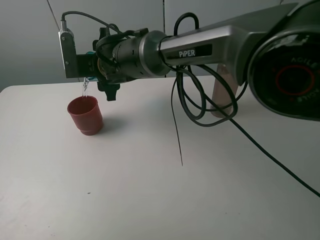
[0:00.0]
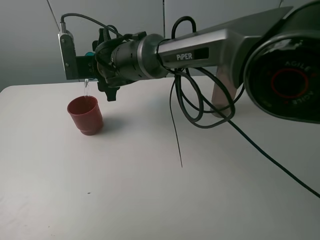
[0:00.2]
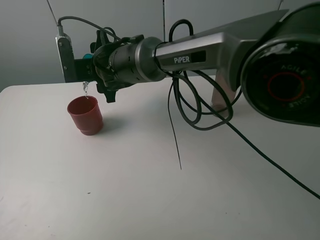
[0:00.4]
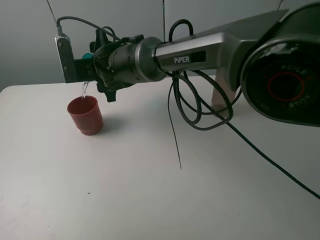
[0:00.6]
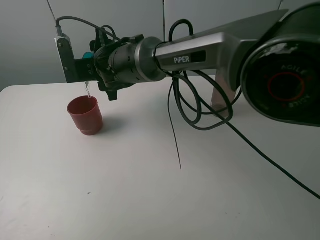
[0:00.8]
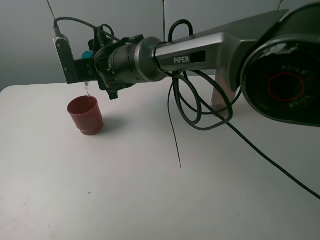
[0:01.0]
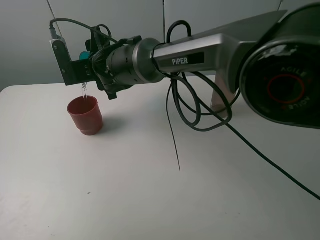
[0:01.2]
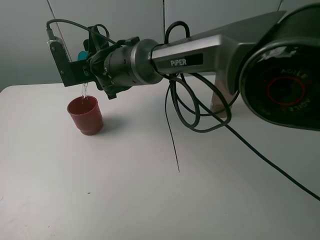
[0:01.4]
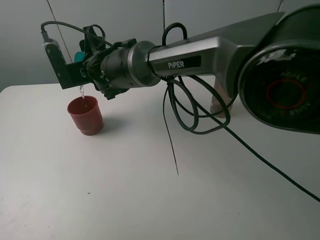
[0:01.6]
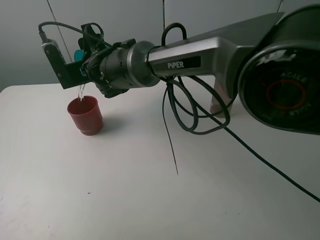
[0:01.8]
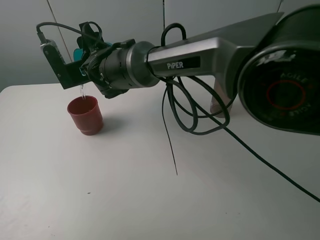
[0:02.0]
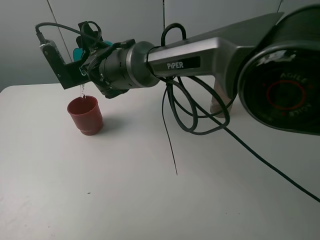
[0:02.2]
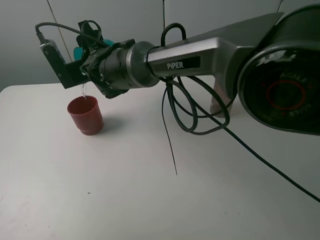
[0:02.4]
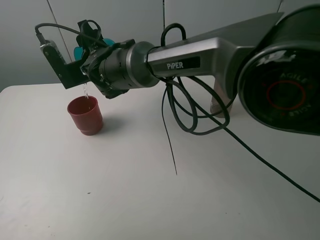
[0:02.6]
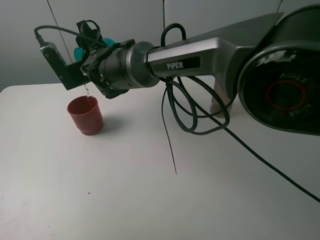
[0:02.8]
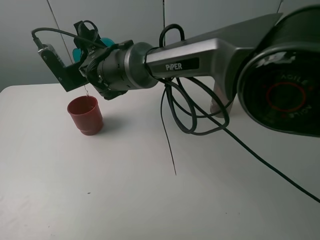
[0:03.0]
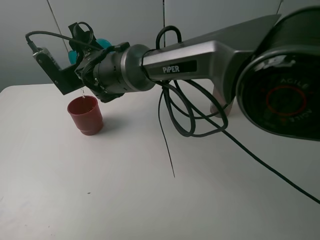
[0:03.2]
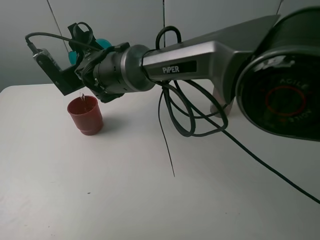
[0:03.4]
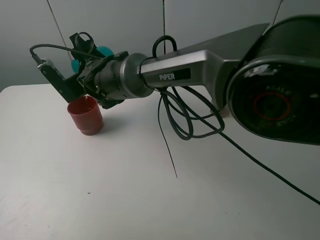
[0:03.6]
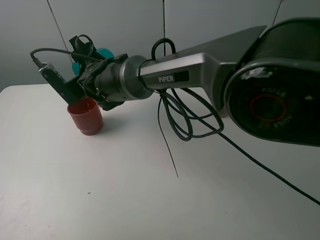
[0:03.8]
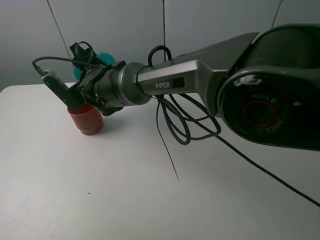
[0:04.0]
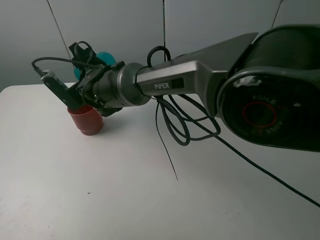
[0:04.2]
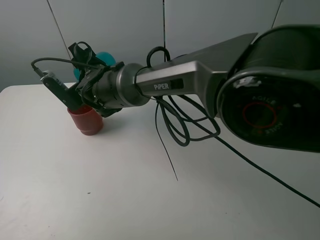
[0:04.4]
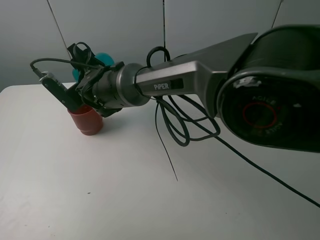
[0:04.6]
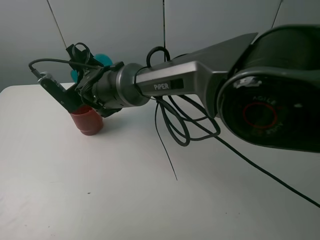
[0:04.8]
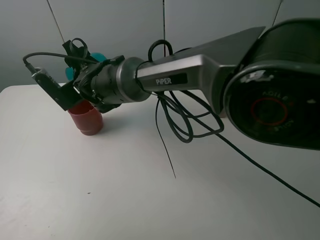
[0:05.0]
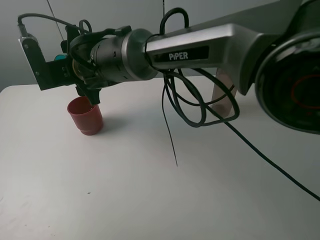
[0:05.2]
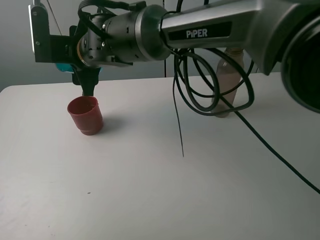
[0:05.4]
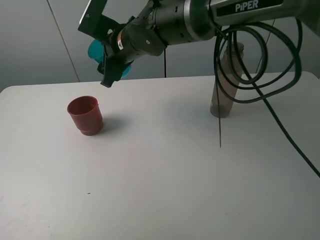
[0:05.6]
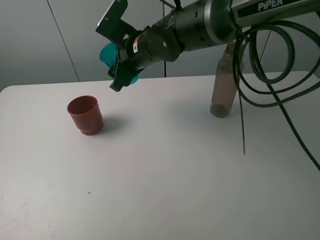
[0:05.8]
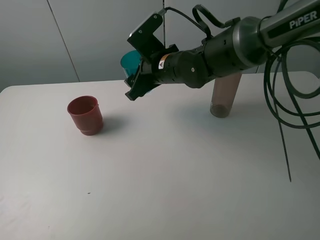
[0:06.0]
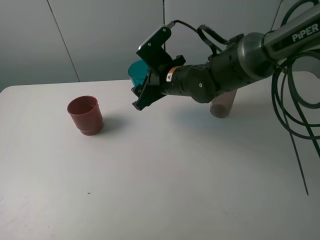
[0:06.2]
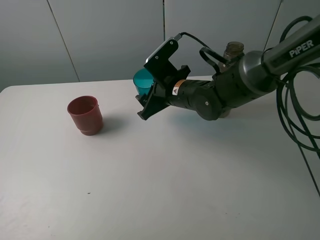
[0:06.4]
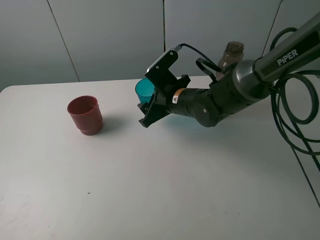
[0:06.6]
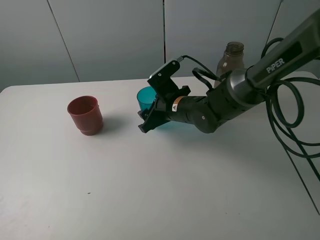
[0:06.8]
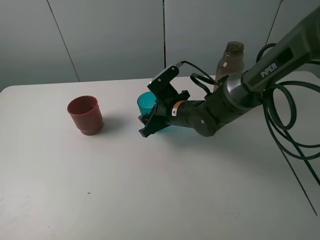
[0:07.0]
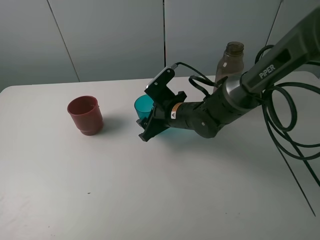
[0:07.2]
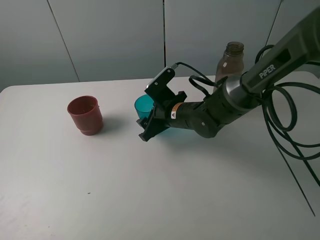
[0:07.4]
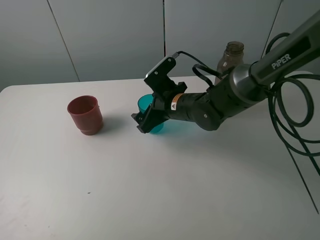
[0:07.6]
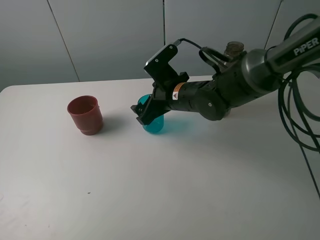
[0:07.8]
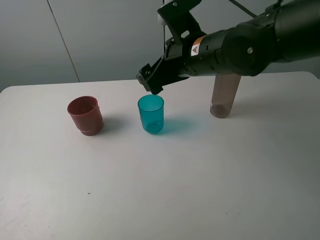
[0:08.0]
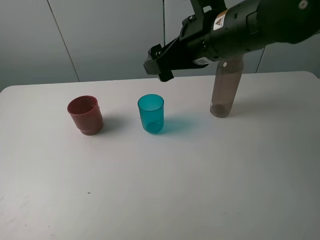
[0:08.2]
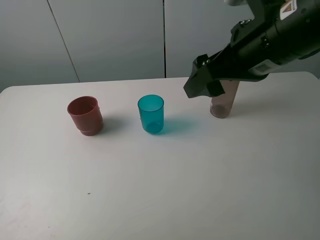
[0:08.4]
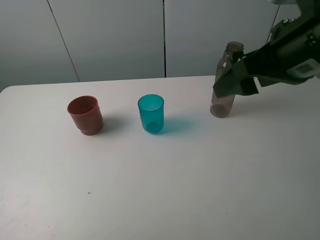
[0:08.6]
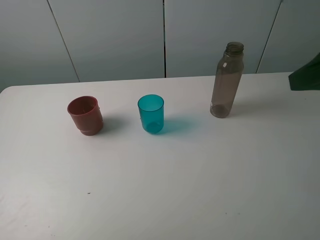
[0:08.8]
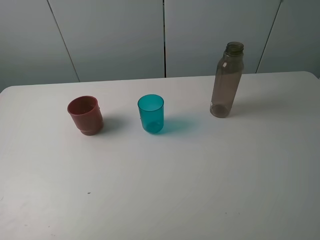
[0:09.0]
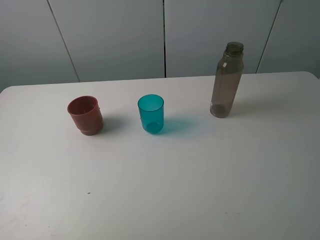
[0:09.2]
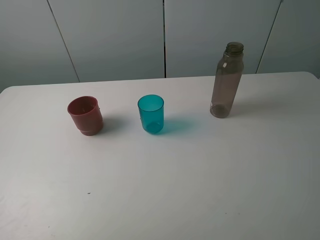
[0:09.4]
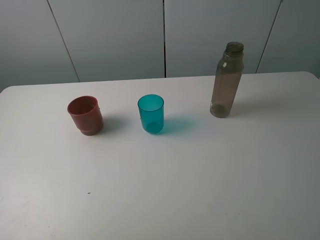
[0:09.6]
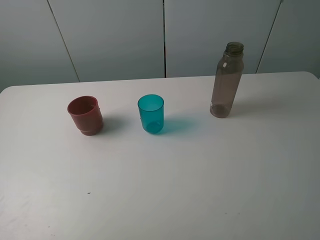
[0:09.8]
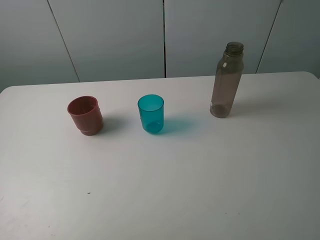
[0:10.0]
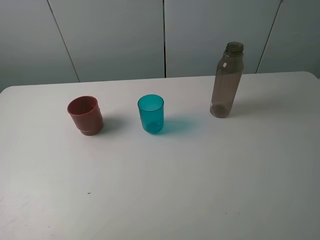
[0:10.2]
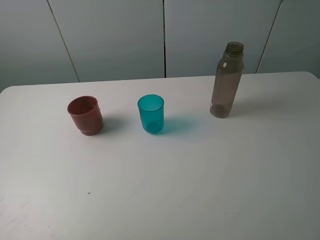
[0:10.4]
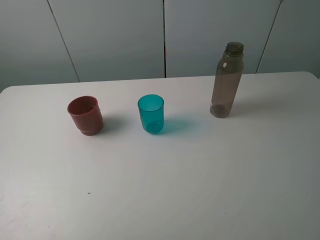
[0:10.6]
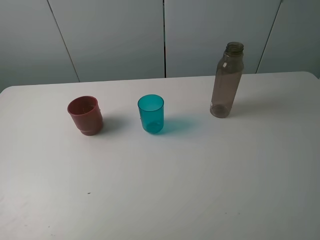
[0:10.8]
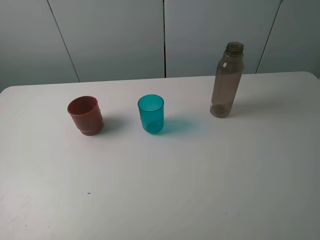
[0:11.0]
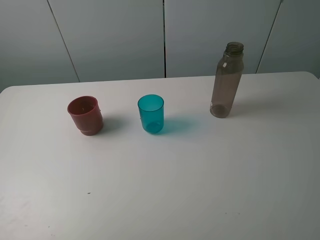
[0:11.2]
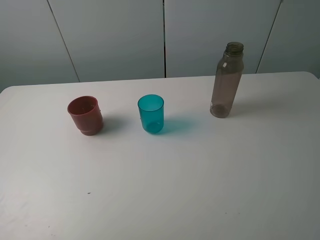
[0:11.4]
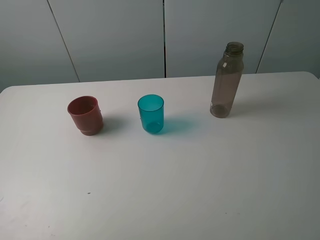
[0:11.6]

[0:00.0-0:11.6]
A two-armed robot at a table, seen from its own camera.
Task of the whole recording: pick up the bottle and pour water into the cup, then pick up the cup containing water and pour it into another cup.
Step, 0:00.0 to 0:03.0: Pour water from blue cup to red cup with the right gripper.
Step, 0:03.2 to 0:07.6: Place the blue cup with the right gripper.
0:00.0 to 0:01.4: The grippers stay close to where they were, moving slightly.
0:01.4 to 0:02.8: The grippers stay close to where they were, moving slightly.
0:04.4 to 0:05.8: The right gripper heads to the right, covering about 10 cm.
0:05.8 to 0:07.2: The right gripper shifts roughly 15 cm downward and to the right.
0:07.2 to 0:08.8: The right gripper moves upward, to the right and backward, about 40 cm, and opens up.
0:08.8 to 0:10.2: The right gripper is displaced backward and downward by some 15 cm.

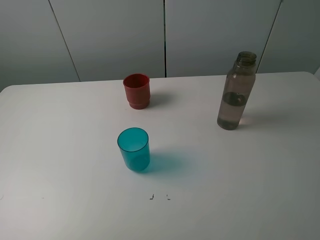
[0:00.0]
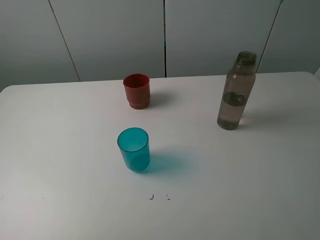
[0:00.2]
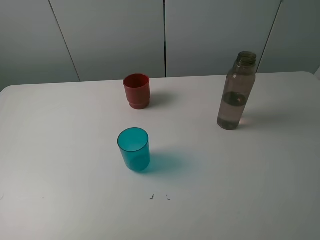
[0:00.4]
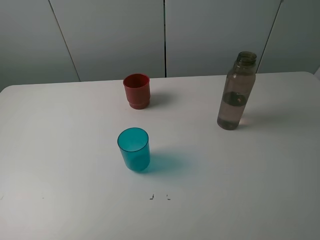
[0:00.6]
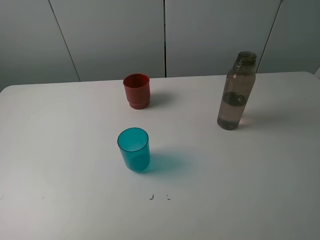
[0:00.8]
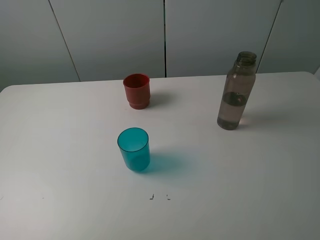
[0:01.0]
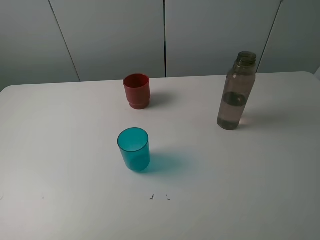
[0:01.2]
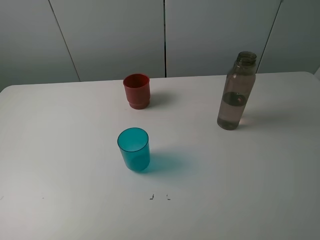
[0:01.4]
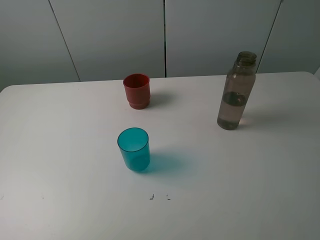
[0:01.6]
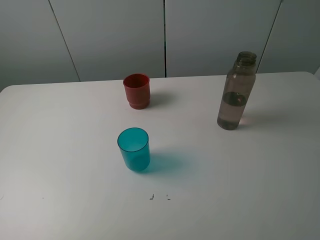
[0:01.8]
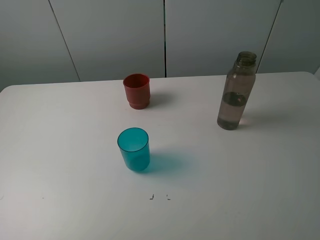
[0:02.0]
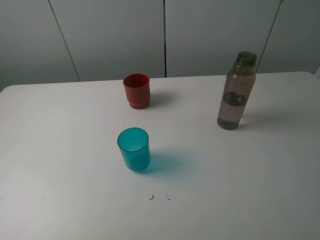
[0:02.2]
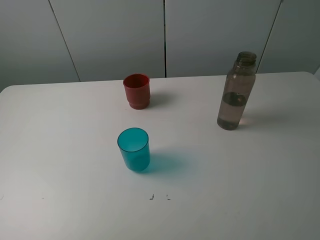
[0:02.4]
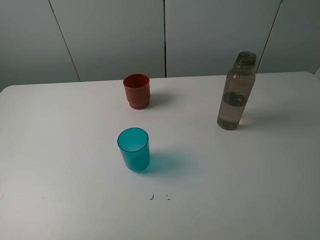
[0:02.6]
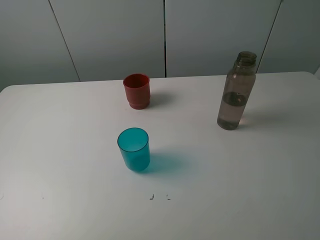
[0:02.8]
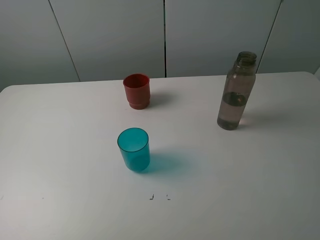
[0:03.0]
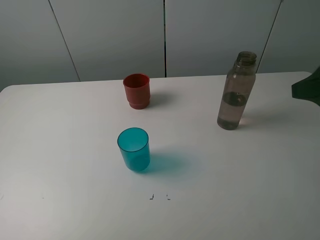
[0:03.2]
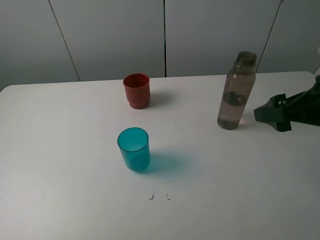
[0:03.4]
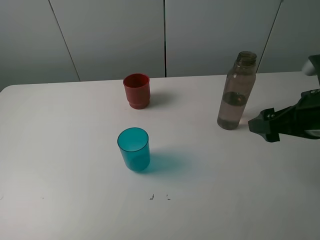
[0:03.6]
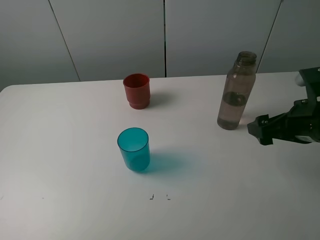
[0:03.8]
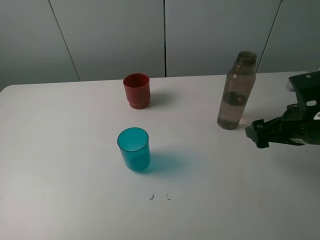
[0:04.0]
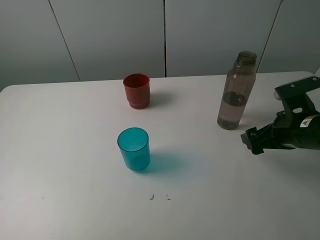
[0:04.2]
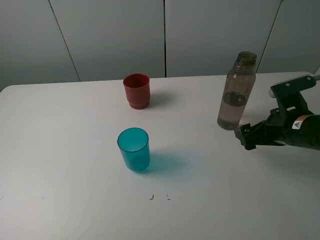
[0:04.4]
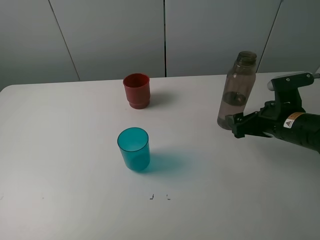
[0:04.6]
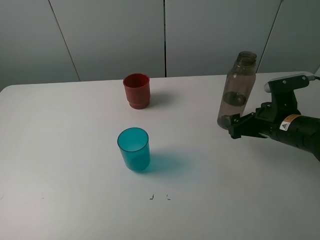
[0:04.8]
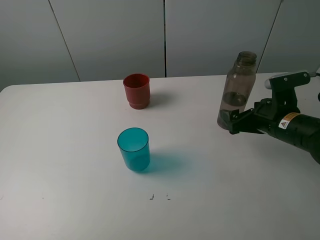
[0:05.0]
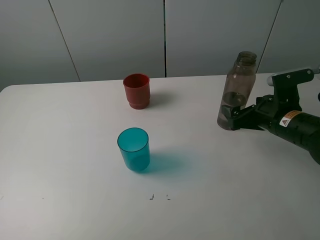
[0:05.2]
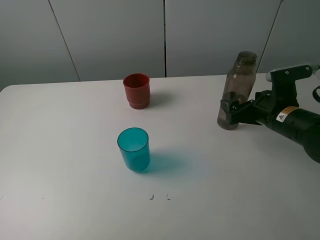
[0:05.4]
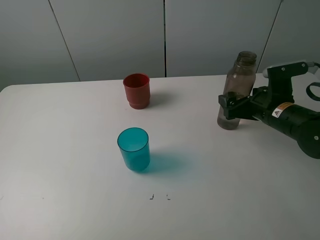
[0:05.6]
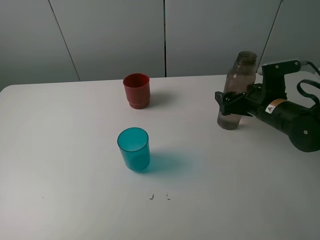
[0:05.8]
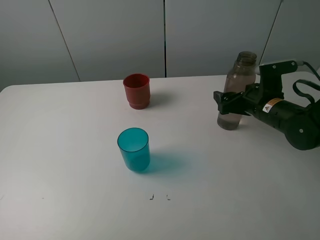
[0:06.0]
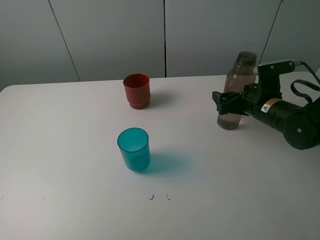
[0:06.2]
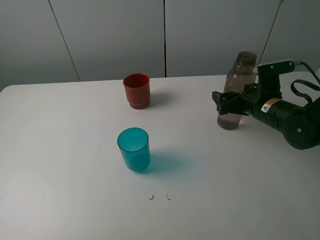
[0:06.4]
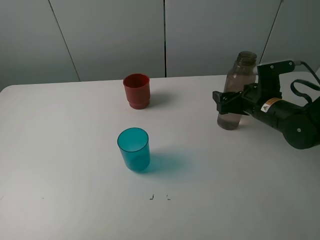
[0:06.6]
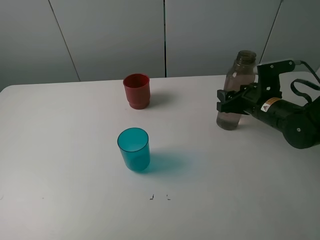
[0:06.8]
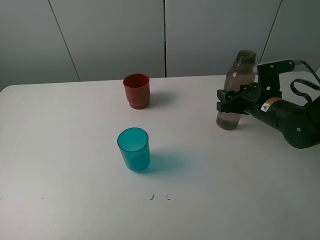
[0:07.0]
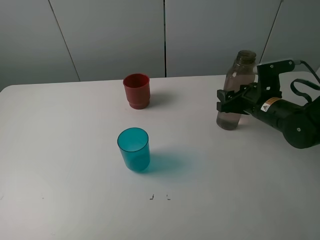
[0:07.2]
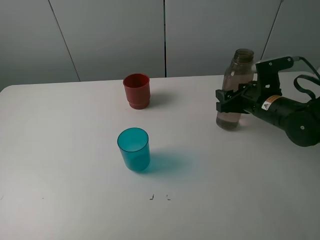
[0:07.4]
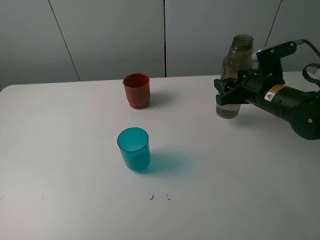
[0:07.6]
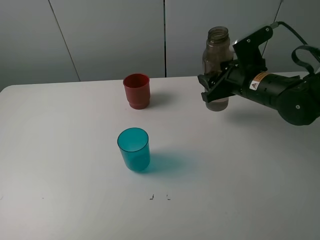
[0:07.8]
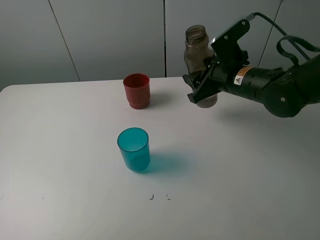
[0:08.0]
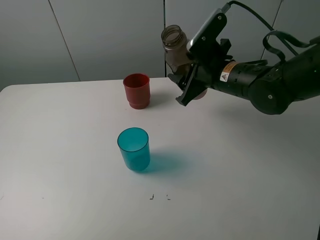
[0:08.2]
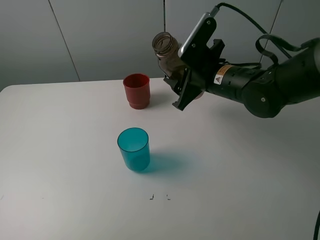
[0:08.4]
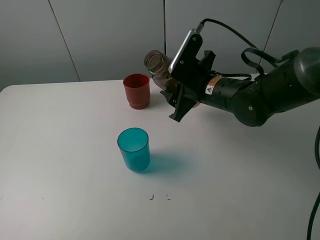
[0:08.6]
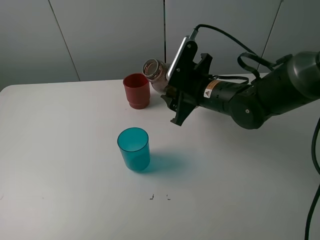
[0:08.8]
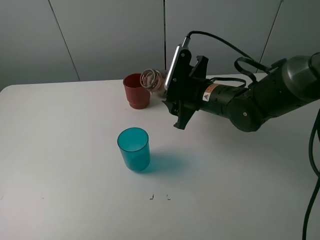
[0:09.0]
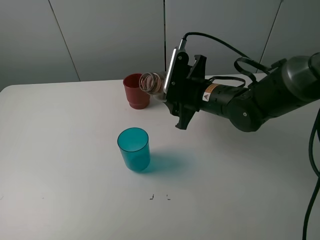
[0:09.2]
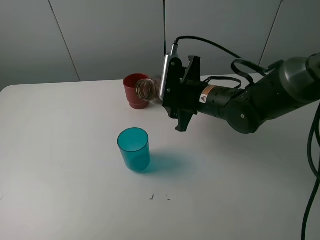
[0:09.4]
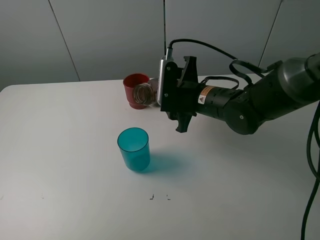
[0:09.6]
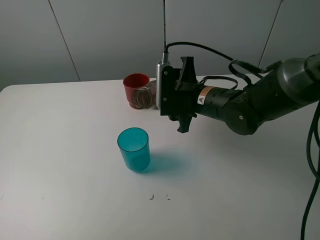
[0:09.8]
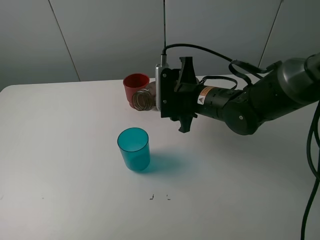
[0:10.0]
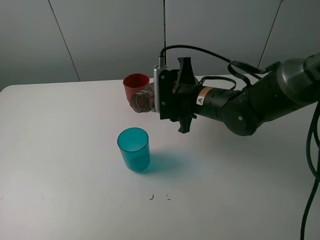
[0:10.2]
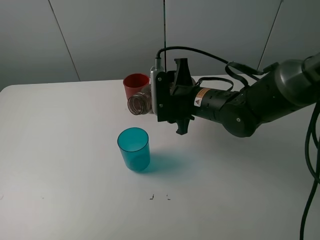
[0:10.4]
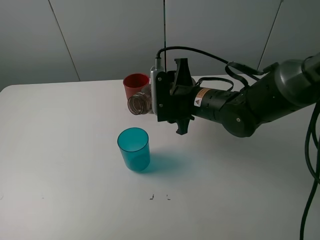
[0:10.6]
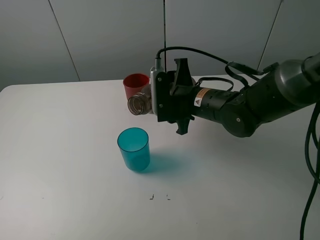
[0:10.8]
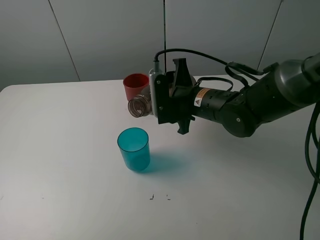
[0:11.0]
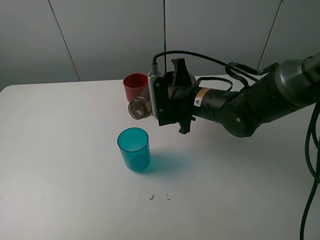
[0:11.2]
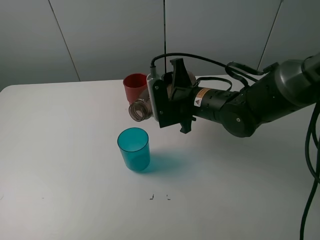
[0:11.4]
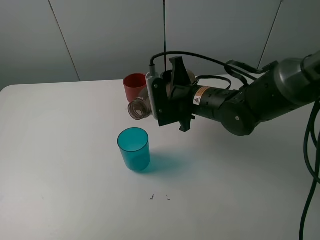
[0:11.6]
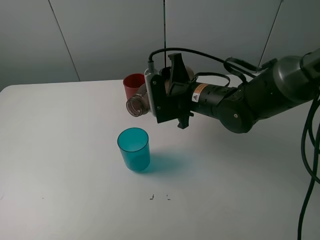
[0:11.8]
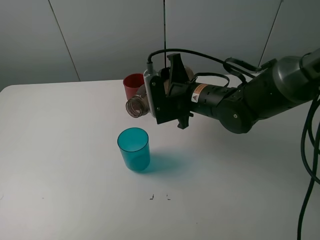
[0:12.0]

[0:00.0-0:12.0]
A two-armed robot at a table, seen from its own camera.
Task of the whole recording: pick up the bottle and pour water into the cup, then pick up the cup containing water and pour it into another cup.
Step, 0:00.0 to 0:06.8: Grasp the brown bottle with the right gripper.
0:00.0 to 0:01.6: The two grippers keep their place.
0:03.0 to 0:04.4: The right gripper goes some 20 cm downward and forward.
0:04.4 to 0:06.0: The right gripper moves forward, approximately 5 cm.
0:06.0 to 0:07.6: The right gripper closes.
0:07.6 to 0:09.0: The right gripper heads to the left, covering roughly 10 cm.
0:10.4 to 0:12.0: The grippers stay close to where they were, moving slightly.
